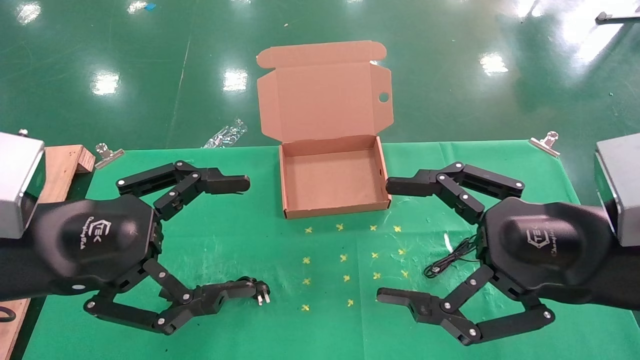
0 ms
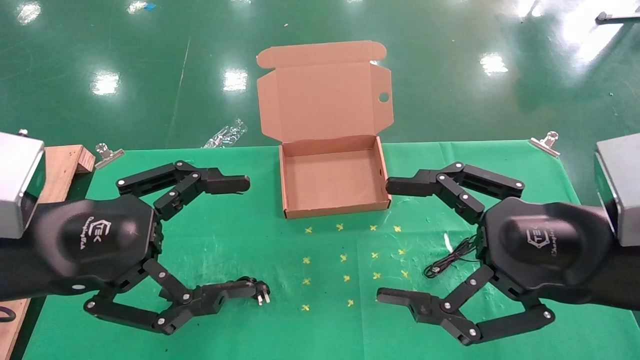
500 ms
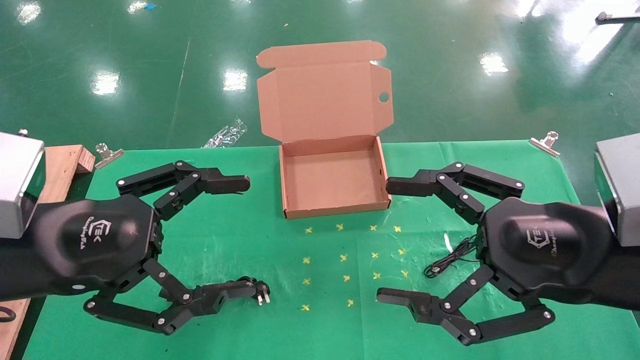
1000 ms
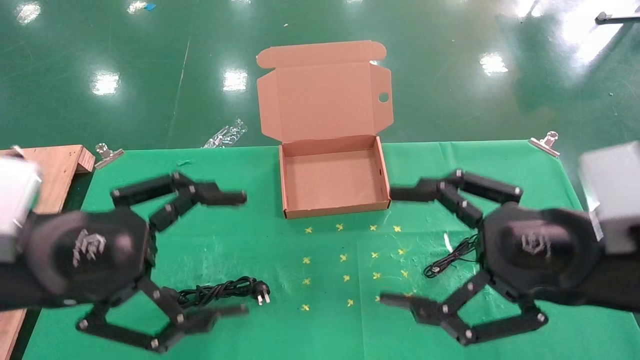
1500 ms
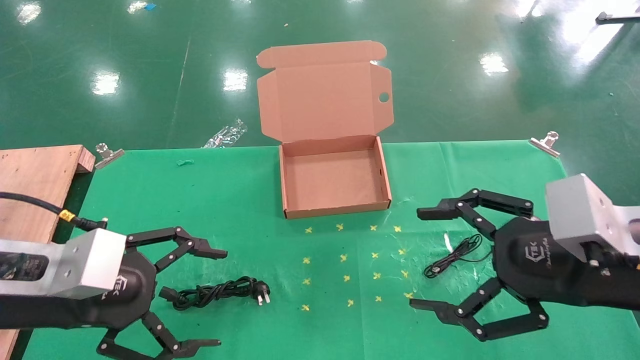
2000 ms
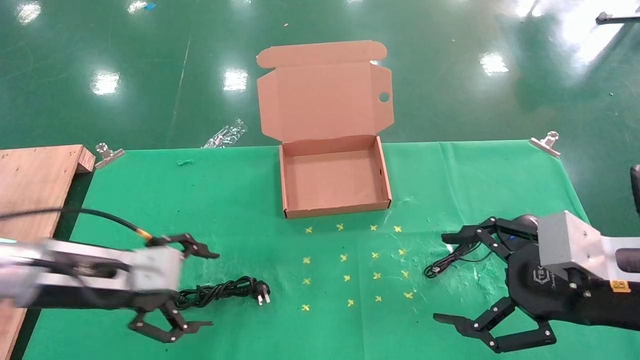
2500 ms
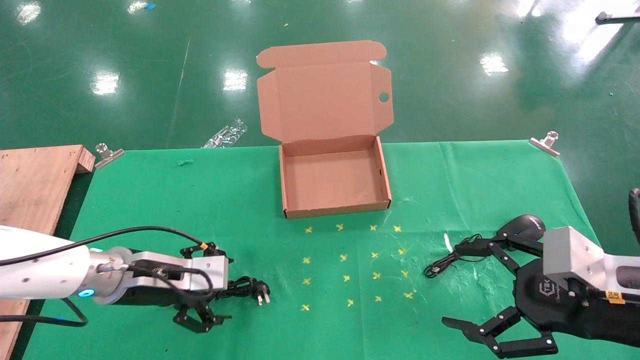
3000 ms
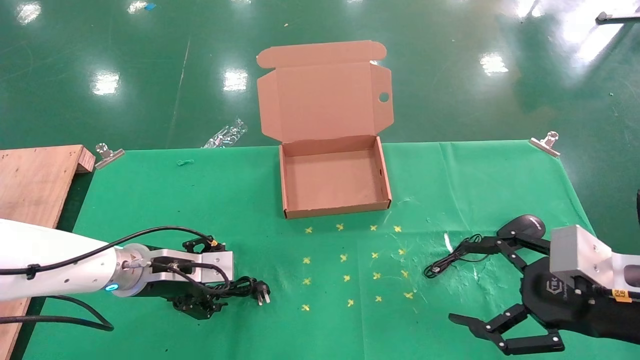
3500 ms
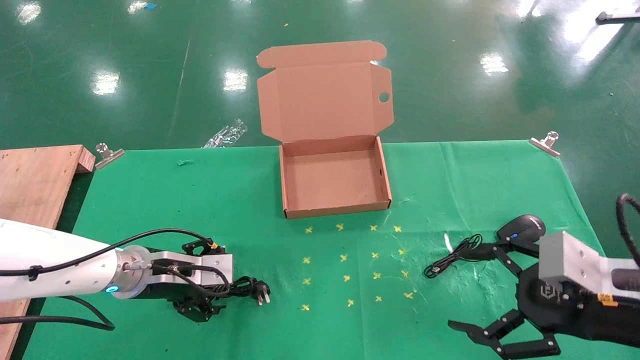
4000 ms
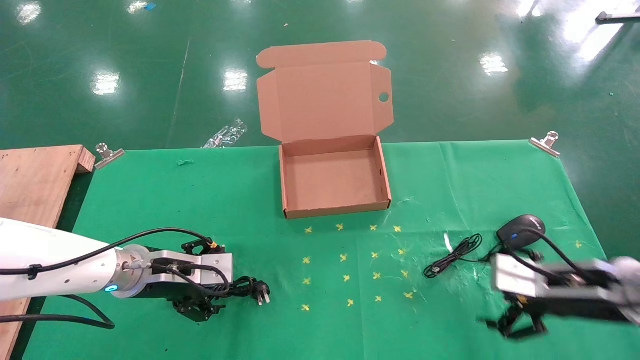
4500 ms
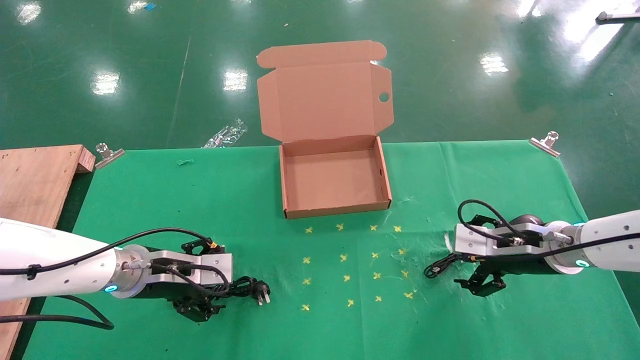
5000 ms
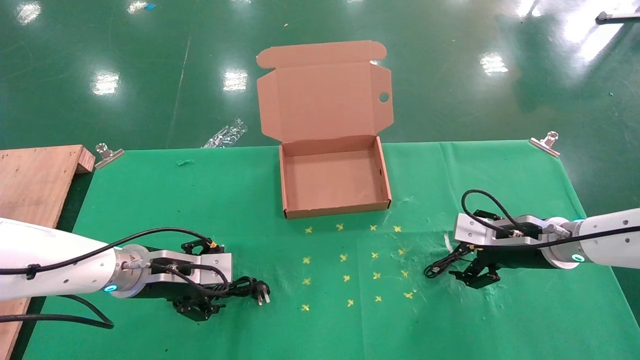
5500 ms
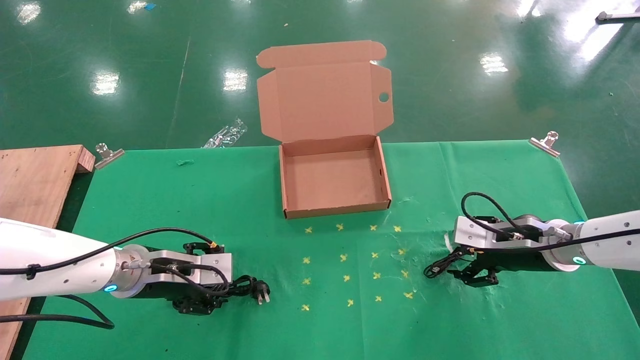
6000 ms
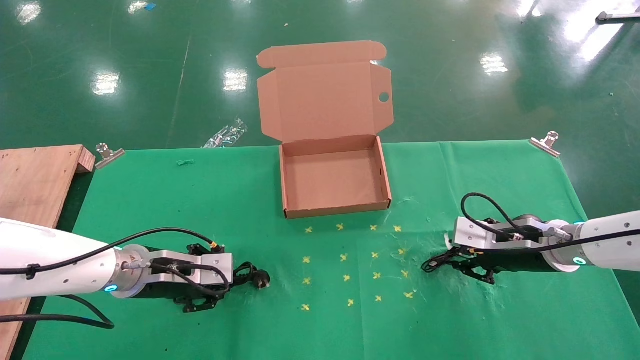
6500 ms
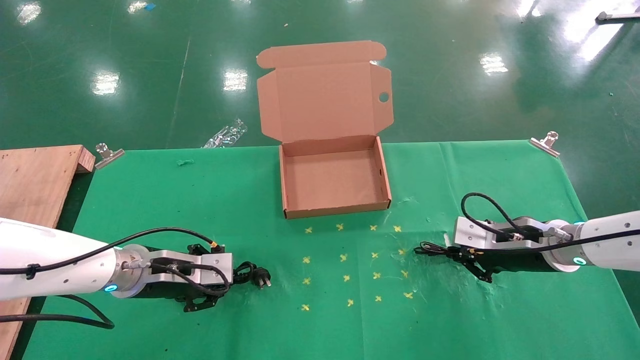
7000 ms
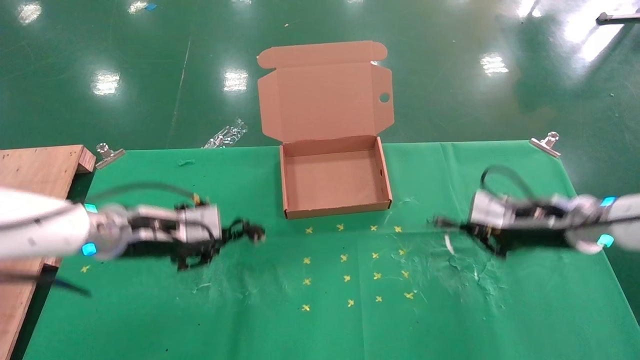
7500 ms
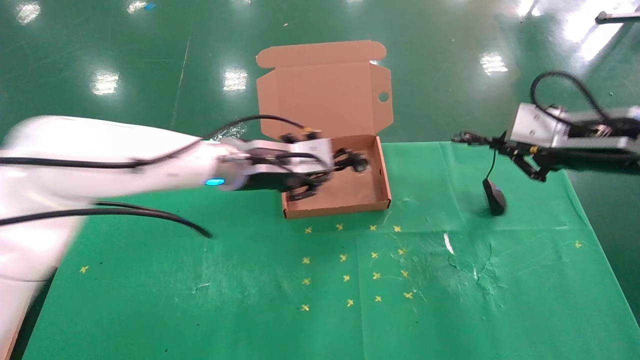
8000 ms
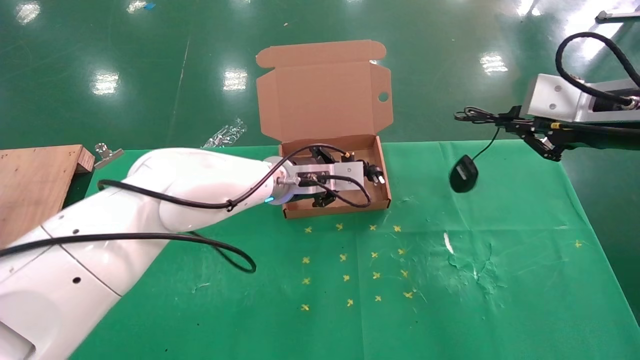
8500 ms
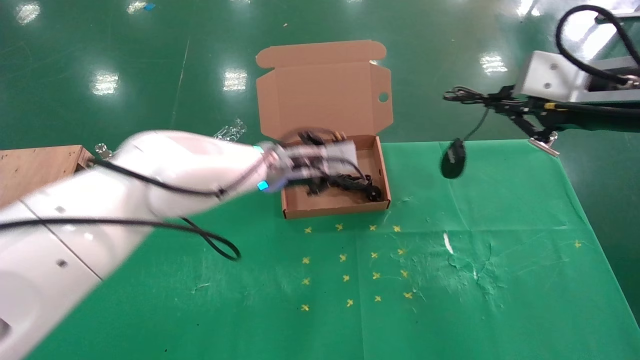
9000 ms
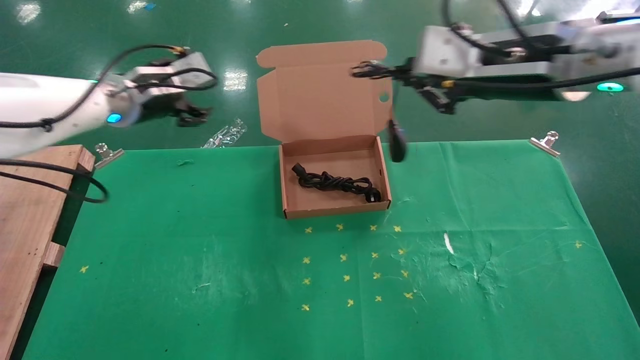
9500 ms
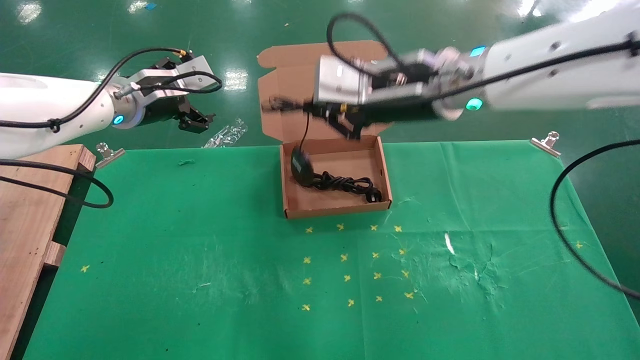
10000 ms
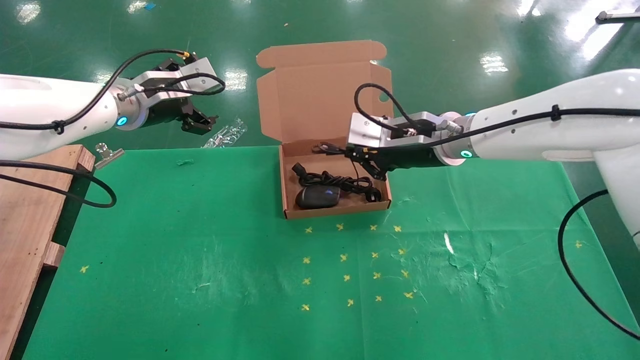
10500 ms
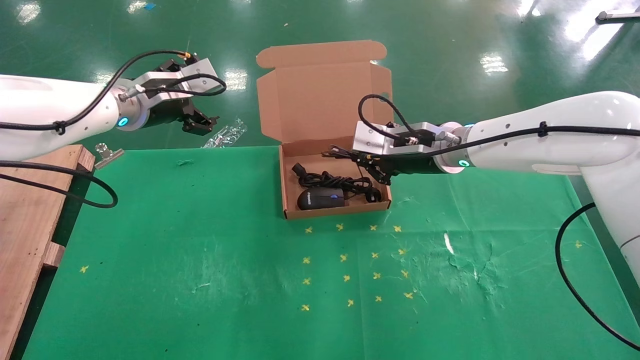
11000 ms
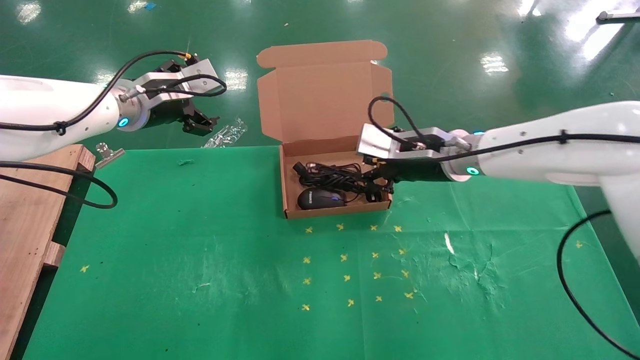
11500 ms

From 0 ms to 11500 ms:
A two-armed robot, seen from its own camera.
Task of the whole recording: grasp data cable left put into box grasp mouse right put into box.
Step, from 2000 ms to 7000 ms: Simultaneously pick up the mouse and power cord from the accessory packaging area.
Step, from 7500 ms to 10500 ms: Place the mouse and power cord into the box.
From 2000 ms to 4000 ms: The left gripper travels forward and downward by roughly 20 cm, while the right gripper heads downward, covering some 10 cm.
From 4000 ms to 6000 ms: The right gripper goes some 15 cm forward.
From 6000 ms to 7500 ms: Both grippers move upward, approximately 5 cm. The right gripper closes up. The left gripper closes.
From 7500 ms to 9500 ms: The left gripper shifts about 15 cm upward and forward, moves about 20 cm to the right and comes back, and opens its fingers; the right gripper travels upward and to the left by some 25 cm.
From 9500 ms to 11500 ms: The left gripper opens. The right gripper heads downward and forward, covering roughly 15 cm.

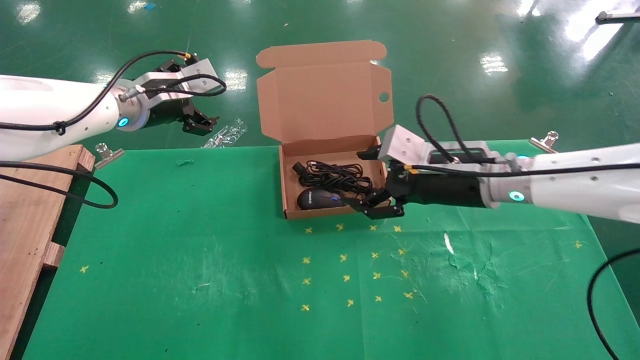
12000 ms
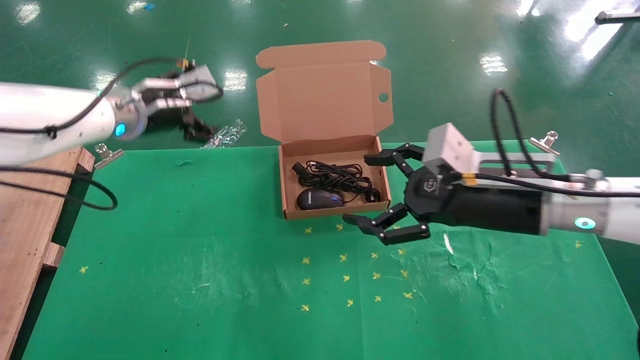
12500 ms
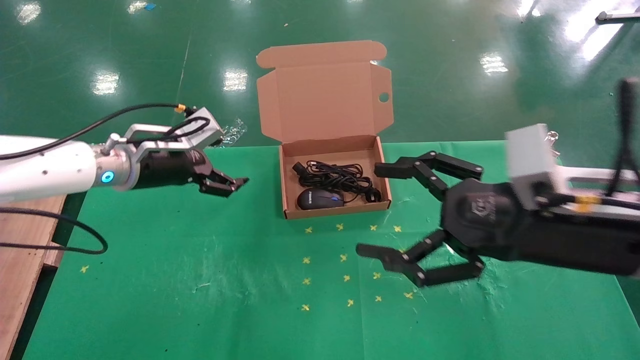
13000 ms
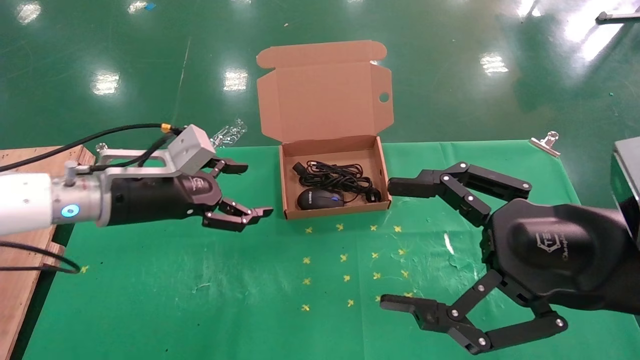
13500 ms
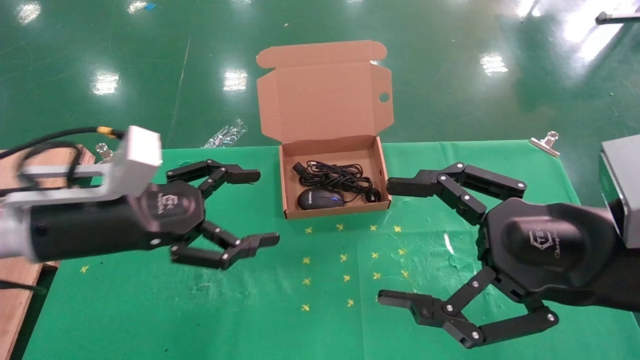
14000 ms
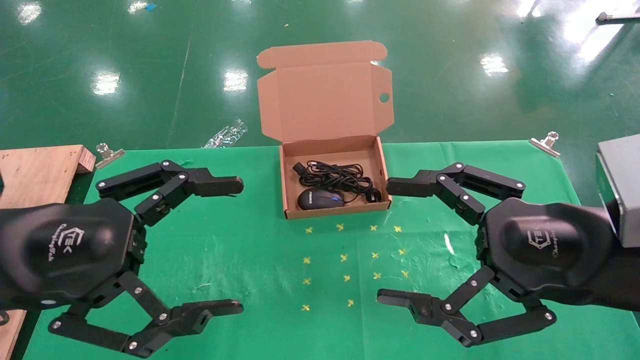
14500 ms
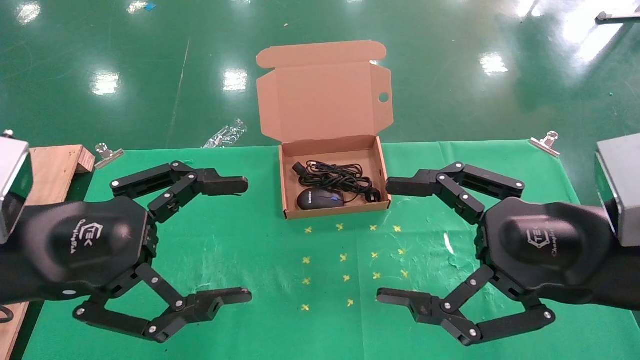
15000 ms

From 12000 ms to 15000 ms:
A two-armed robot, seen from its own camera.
Task of the whole recording: grasp data cable left put into box grasp mouse right put into box.
From 12000 ms to 13500 ms: The right gripper is displaced backward by approximately 20 cm. The left gripper travels backward and downward by about 15 cm.
From 13500 ms to 15000 ms: The left gripper moves backward, roughly 15 cm.
